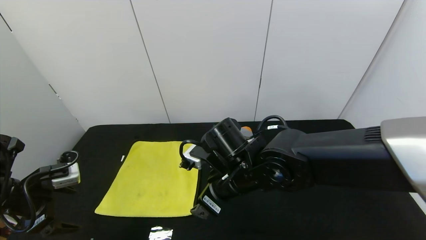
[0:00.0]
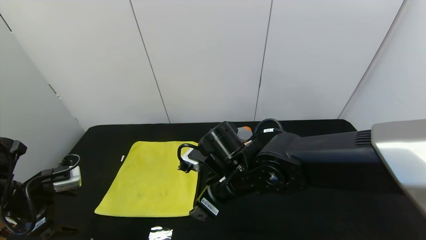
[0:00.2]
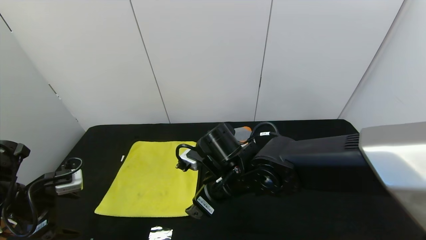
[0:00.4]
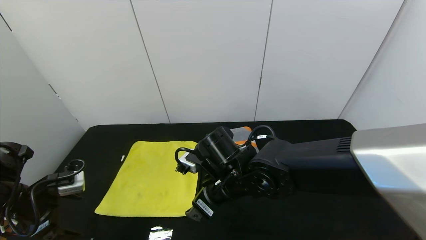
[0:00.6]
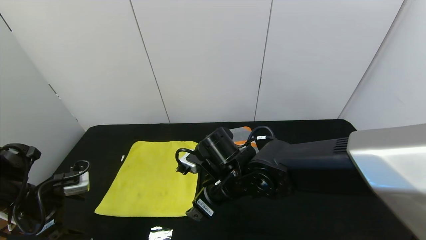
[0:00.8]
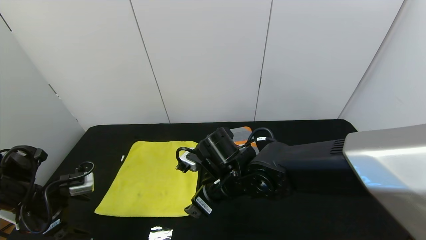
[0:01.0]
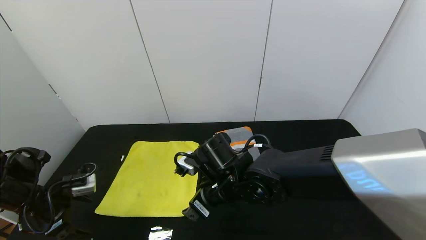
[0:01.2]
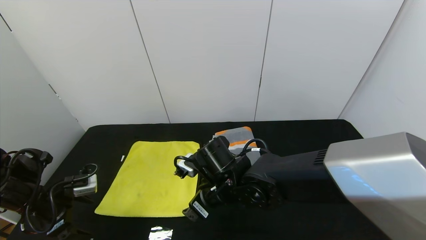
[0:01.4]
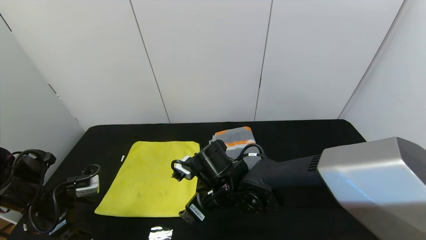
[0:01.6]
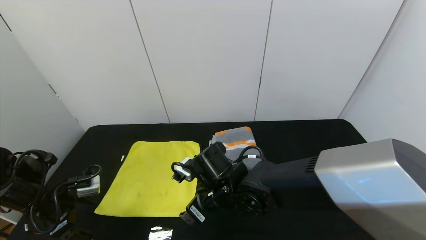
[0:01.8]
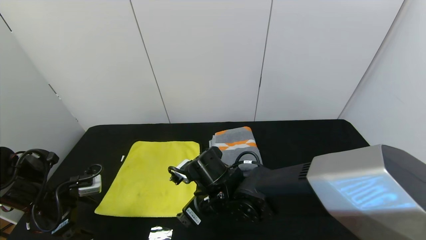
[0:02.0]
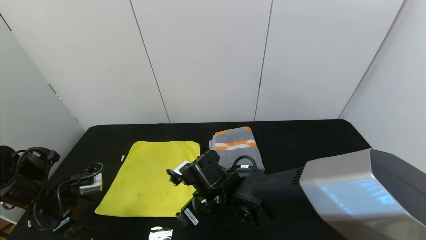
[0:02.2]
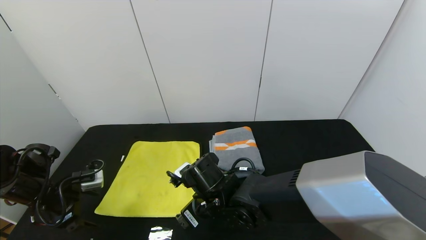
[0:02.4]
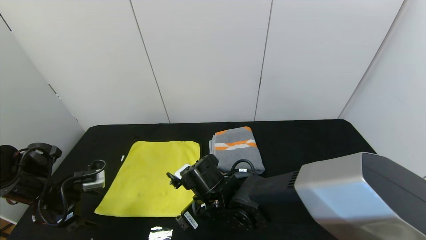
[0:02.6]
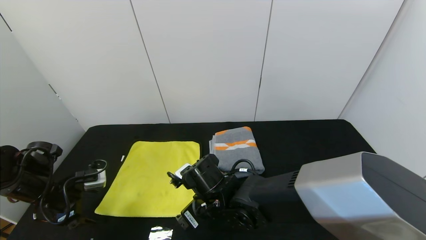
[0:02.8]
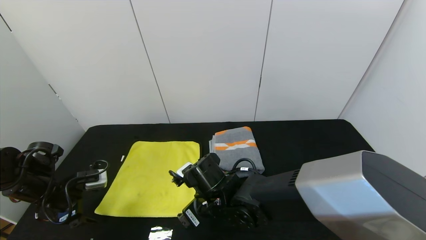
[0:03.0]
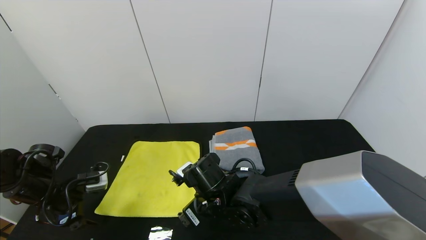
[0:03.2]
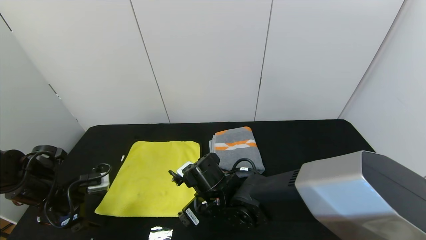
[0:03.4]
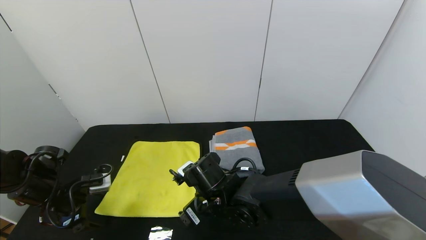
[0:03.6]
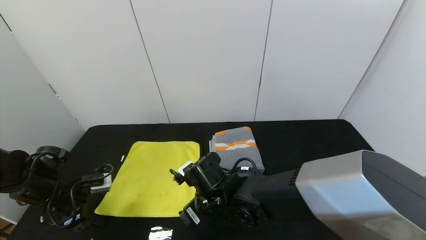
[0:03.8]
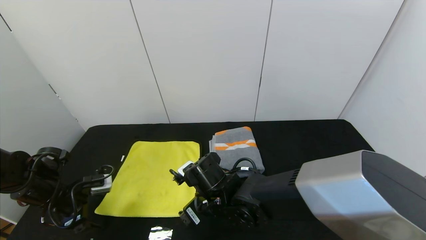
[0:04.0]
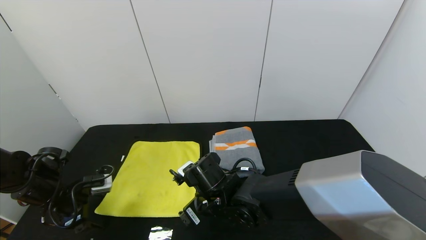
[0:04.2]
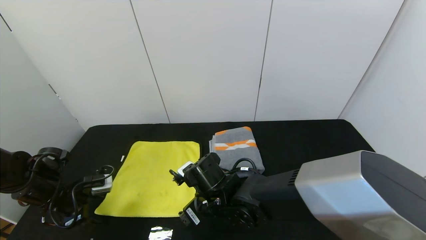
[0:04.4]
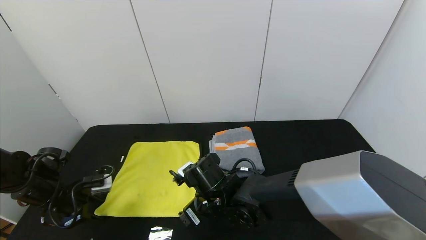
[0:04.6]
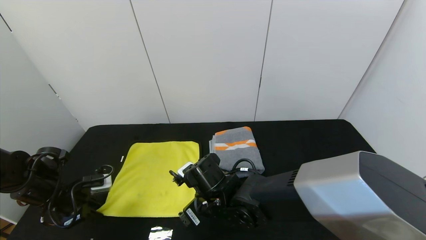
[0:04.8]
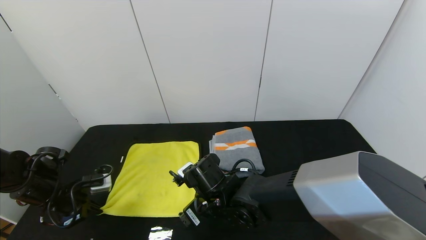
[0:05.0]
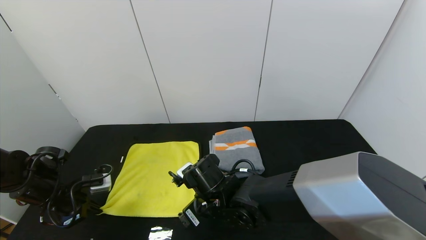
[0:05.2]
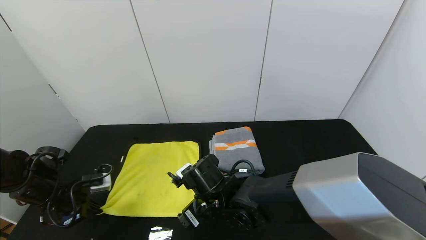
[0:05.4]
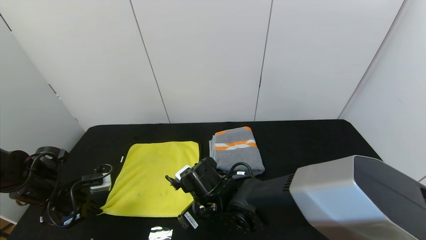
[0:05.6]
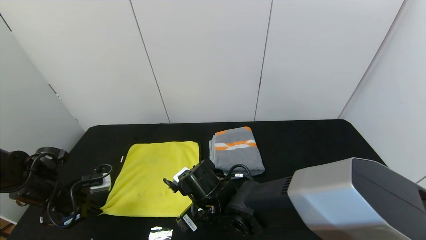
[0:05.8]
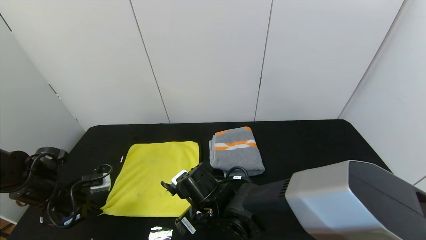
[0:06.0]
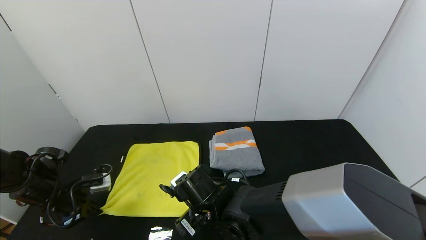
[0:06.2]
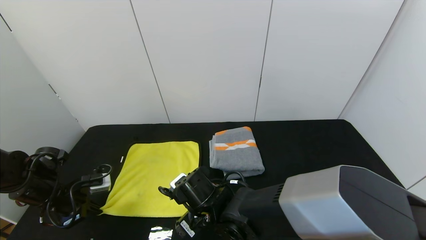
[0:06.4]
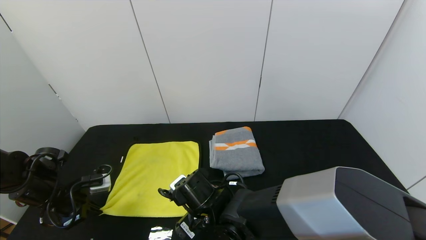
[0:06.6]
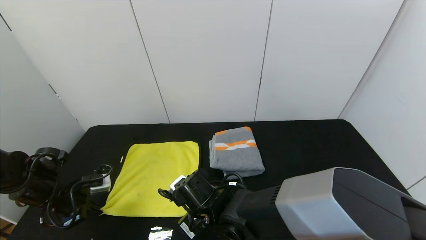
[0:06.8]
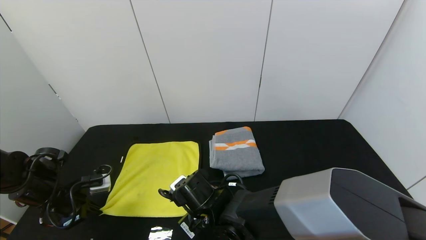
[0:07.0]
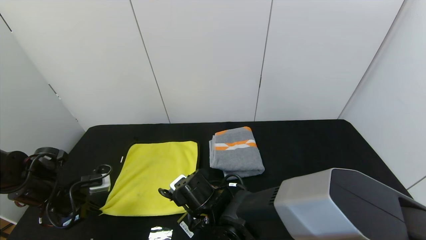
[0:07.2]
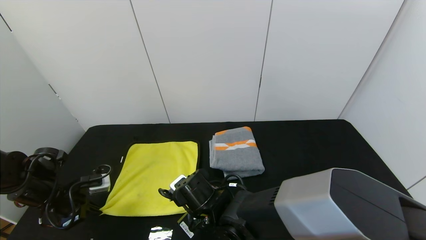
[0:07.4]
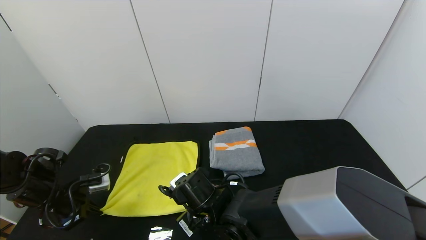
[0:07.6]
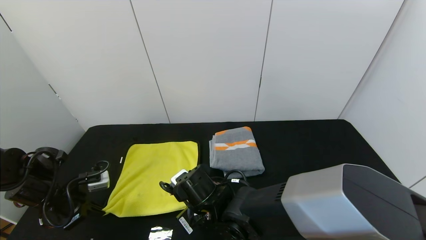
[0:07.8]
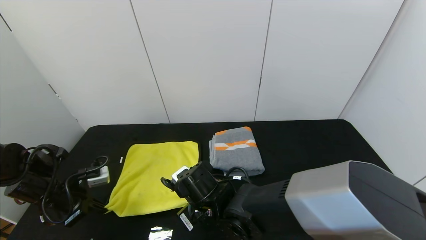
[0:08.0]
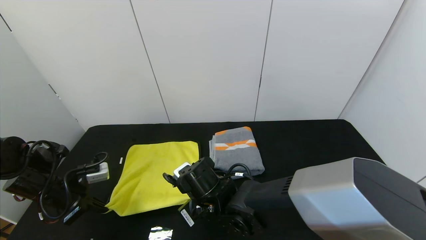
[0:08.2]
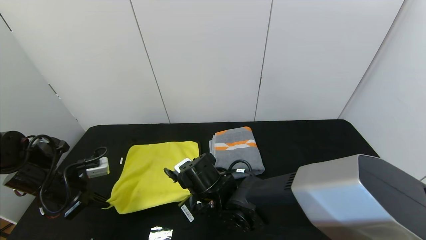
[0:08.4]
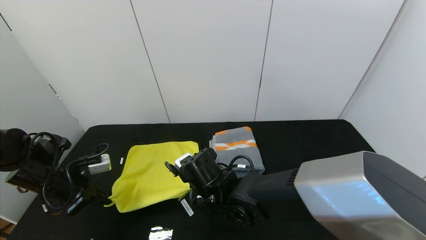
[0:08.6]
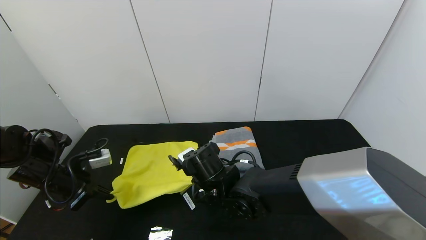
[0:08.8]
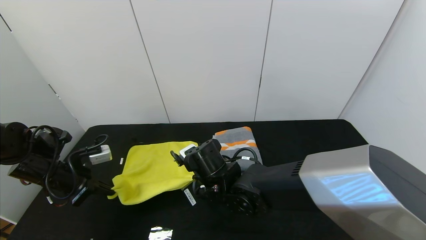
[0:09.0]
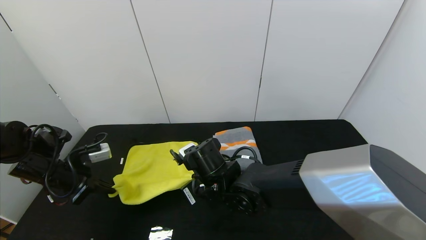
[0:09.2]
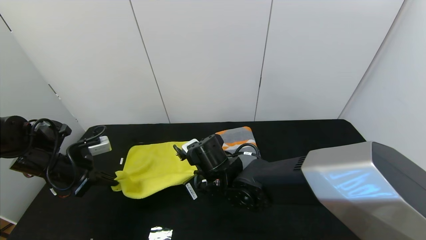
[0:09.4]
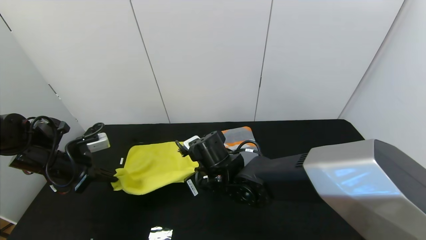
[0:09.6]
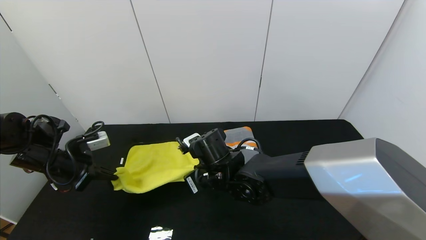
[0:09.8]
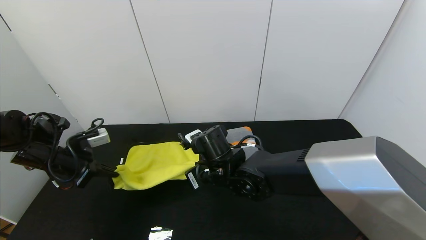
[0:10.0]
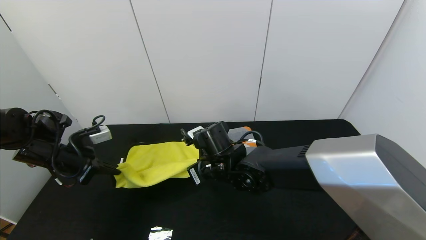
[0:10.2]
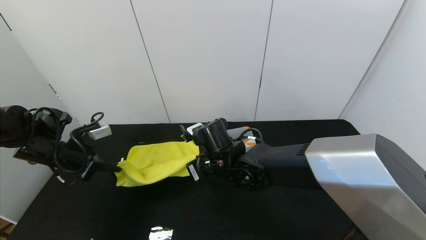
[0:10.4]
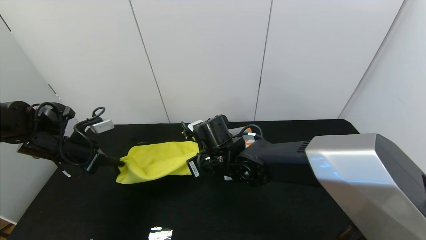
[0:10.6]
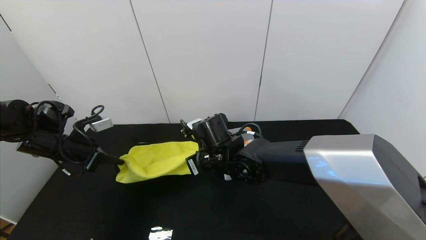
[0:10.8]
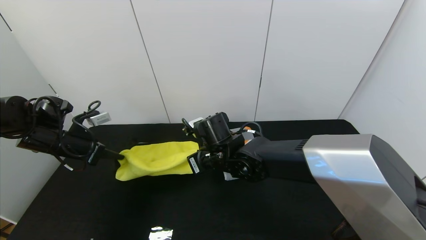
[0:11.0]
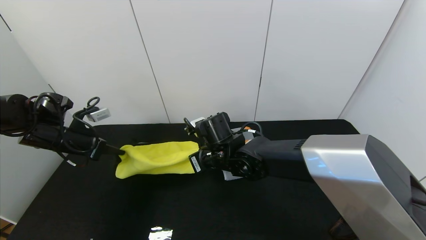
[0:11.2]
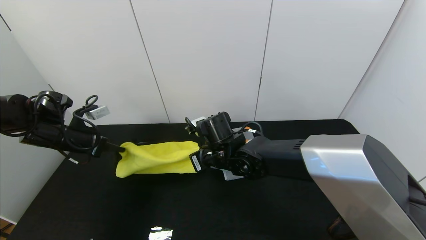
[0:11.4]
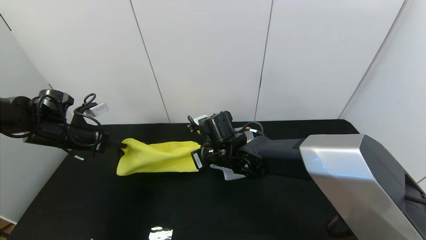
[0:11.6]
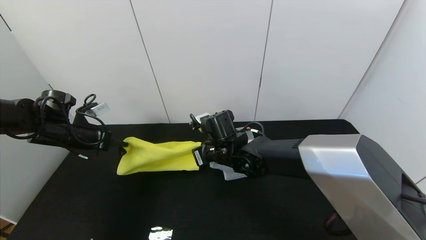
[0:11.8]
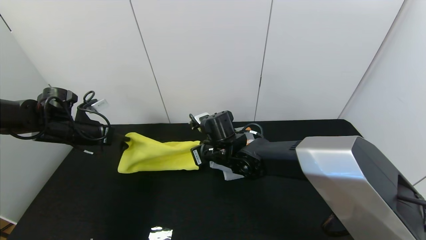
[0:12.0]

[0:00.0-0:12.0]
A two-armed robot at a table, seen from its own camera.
Task of the whole recording: Use the gripper to fold the yellow towel and grey towel in half twice,then put the yellow towel on the grey towel.
0:00.0 to 0:01.6: Both grippers travel together downward, about 5 cm.
0:01.6 to 0:04.4: There are only small adjustments of the grippers.
0:04.4 to 0:06.0: The left gripper closes up.
0:06.0 to 0:07.6: The right gripper closes its fingers.
0:07.6 to 0:09.0: The right gripper moves approximately 5 cm. The left gripper moves approximately 5 cm.
0:09.0 to 0:10.4: The grippers make only small movements.
0:10.4 to 0:12.0: The left gripper travels forward by roughly 5 cm.

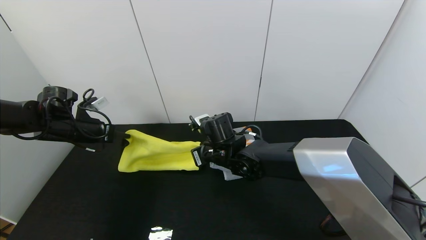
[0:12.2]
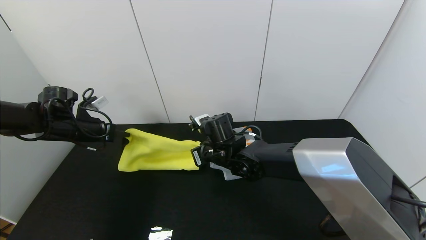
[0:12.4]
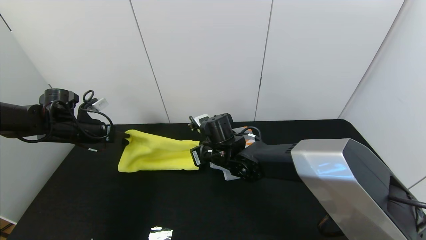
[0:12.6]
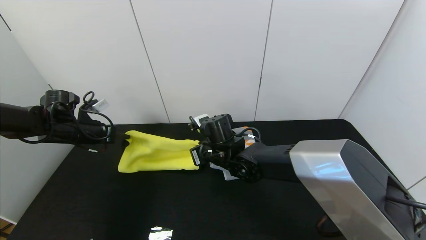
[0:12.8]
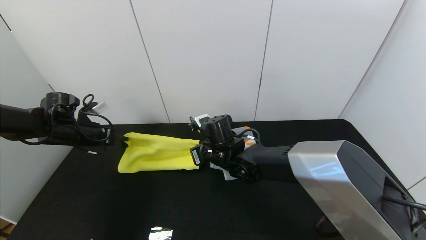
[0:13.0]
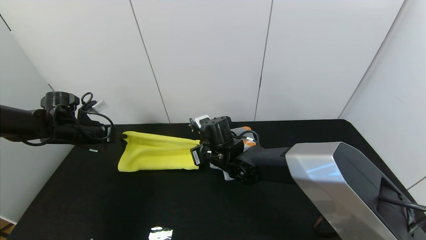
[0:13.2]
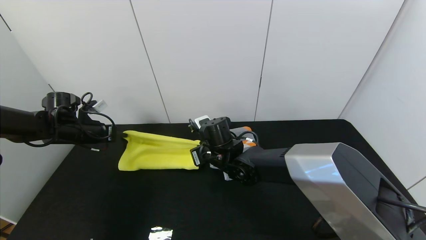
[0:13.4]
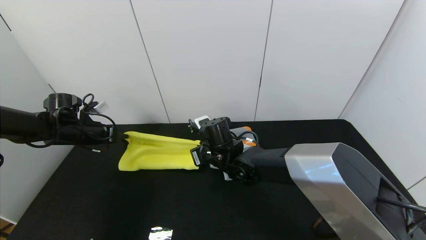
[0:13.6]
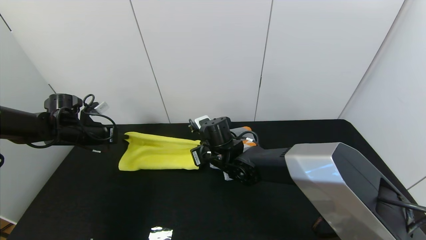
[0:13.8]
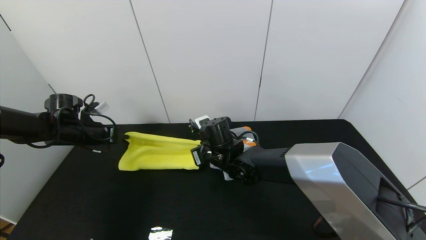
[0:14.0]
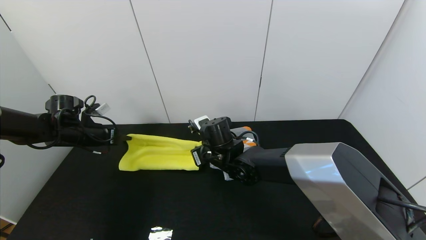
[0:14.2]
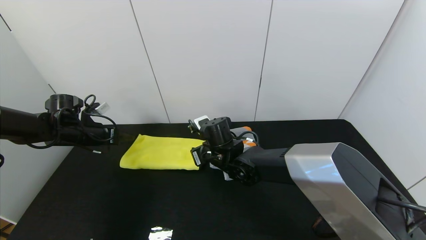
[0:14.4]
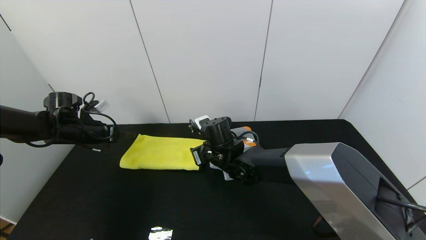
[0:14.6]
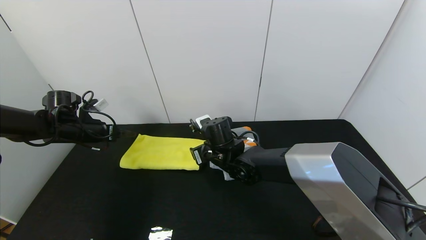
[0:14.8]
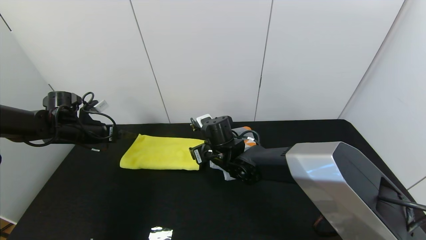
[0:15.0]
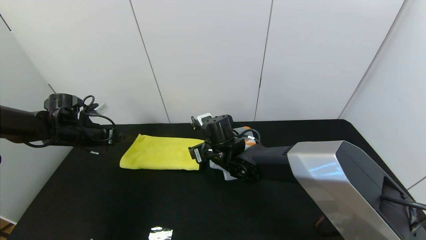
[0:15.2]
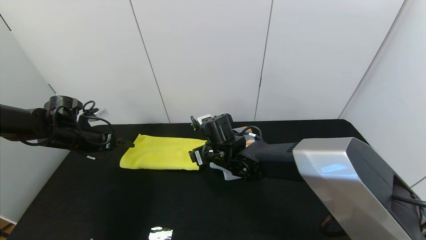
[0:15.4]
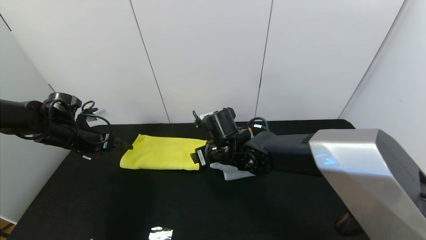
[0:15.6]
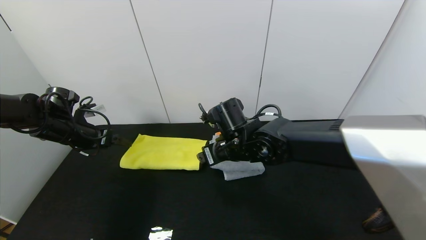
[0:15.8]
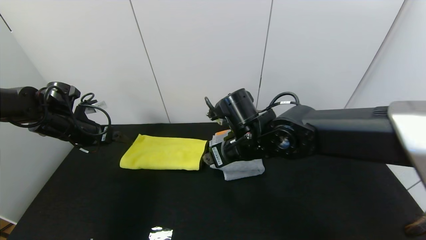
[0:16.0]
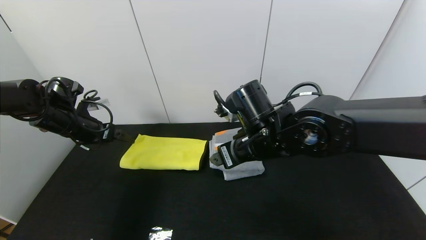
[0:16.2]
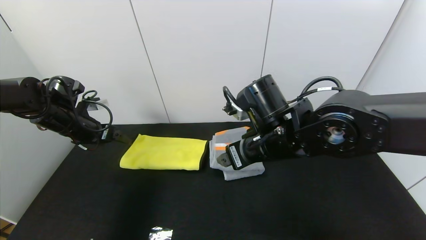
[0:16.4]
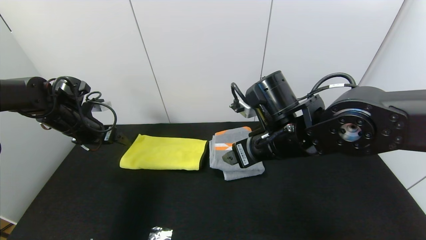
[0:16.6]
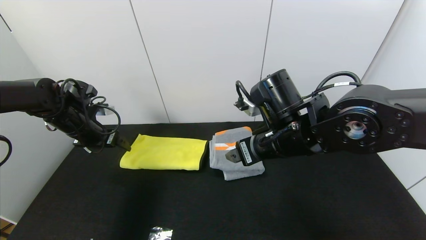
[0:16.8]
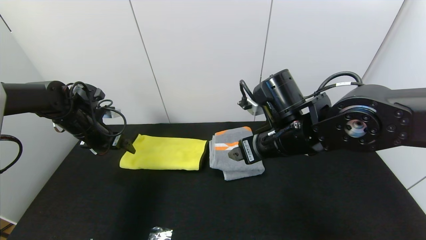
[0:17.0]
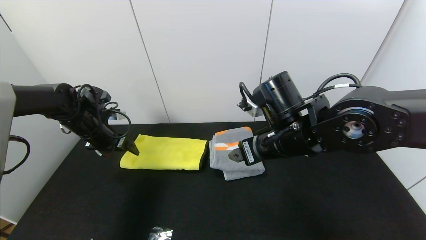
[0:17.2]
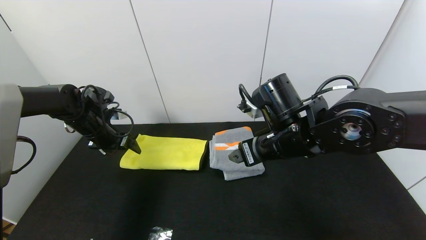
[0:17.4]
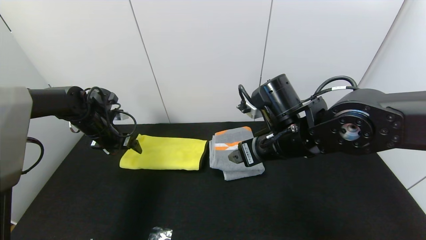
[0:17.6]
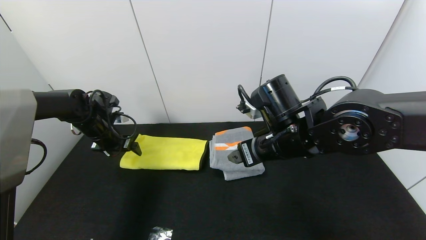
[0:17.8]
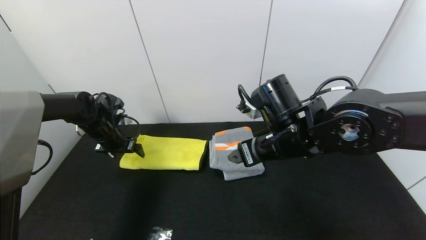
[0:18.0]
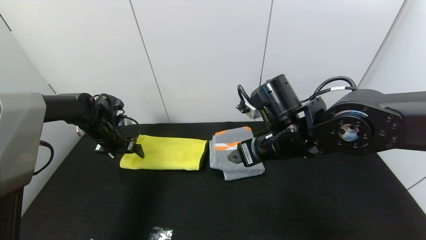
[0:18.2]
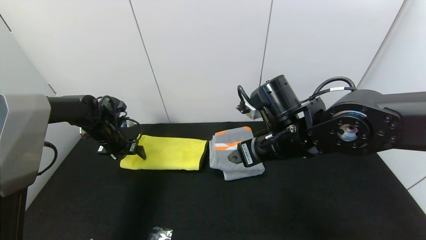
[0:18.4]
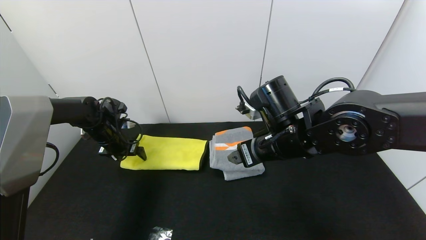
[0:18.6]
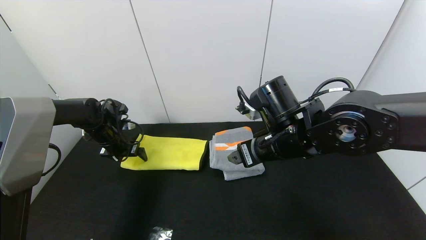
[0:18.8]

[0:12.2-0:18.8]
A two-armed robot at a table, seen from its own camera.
Task of the whole recording: Use the gripper to fold the yellow towel and grey towel in half twice,then put the yellow towel on the grey towel.
Step, 0:12.2 to 0:14.6: Fold the yellow towel upwards with the left gripper.
Step, 0:12.2 to 0:14.6: Fold the yellow towel upwards with the right gripper.
0:12.2 to 0:13.8: The grippers stay close to where they were, moving slightly.
0:13.8 to 0:15.4: The right gripper opens. The left gripper opens up.
0:15.4 to 0:17.2: The left gripper shifts by roughly 5 cm. Meanwhile the right gripper travels to the right, upward and backward by about 15 cm.
0:17.2 to 0:18.8: The left gripper shifts by some 5 cm.
